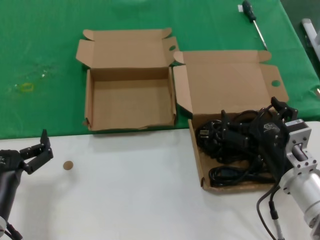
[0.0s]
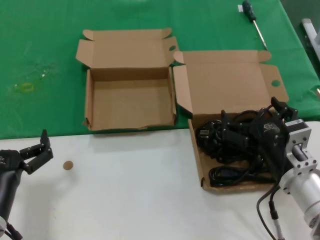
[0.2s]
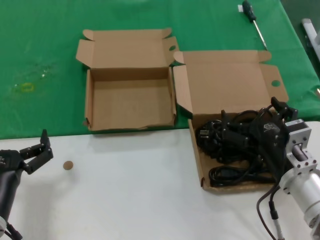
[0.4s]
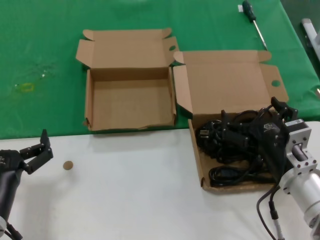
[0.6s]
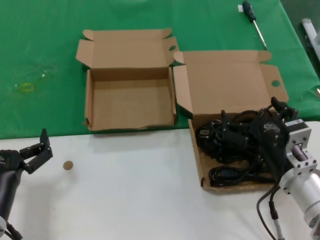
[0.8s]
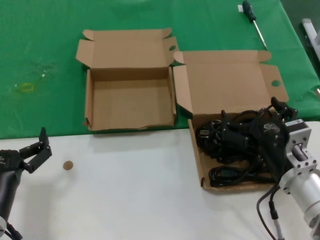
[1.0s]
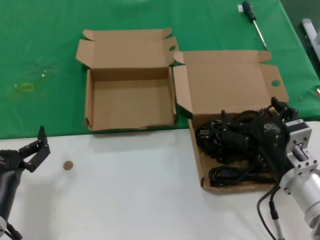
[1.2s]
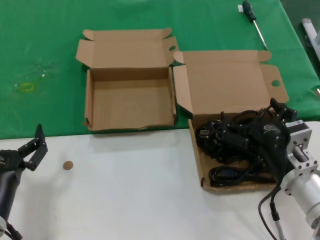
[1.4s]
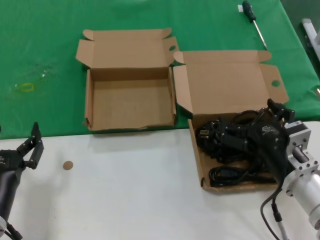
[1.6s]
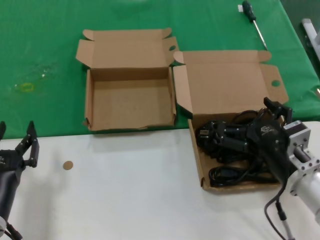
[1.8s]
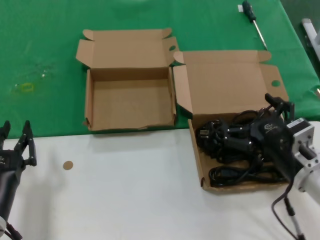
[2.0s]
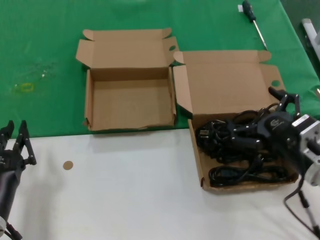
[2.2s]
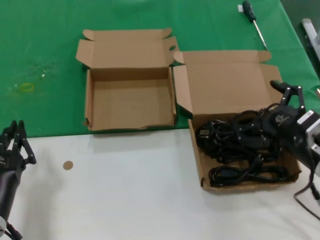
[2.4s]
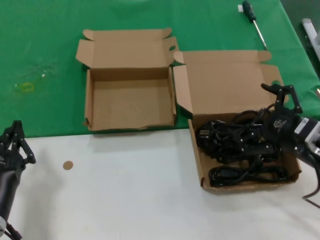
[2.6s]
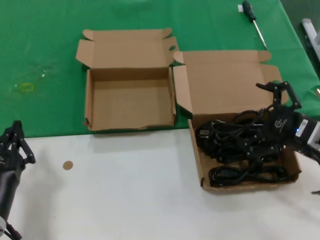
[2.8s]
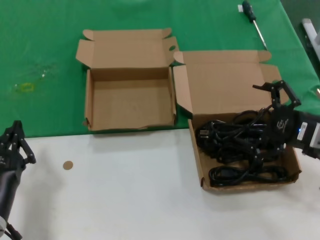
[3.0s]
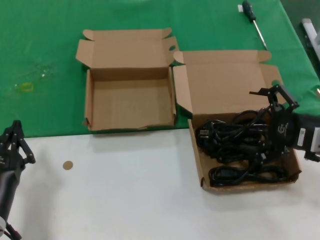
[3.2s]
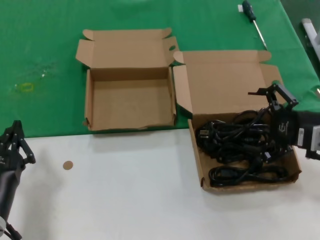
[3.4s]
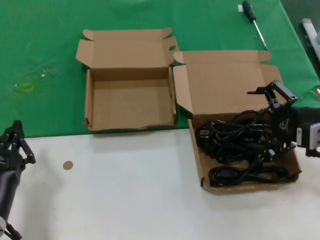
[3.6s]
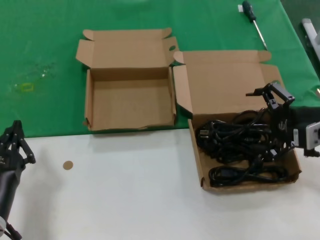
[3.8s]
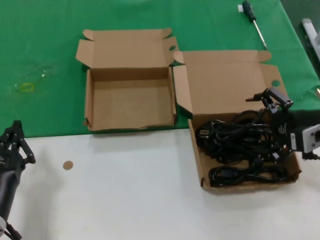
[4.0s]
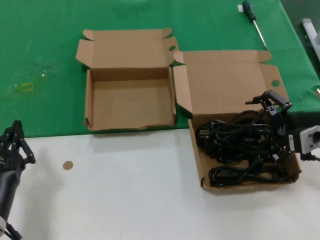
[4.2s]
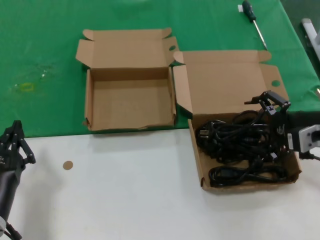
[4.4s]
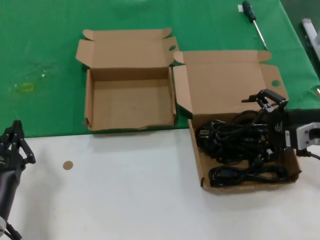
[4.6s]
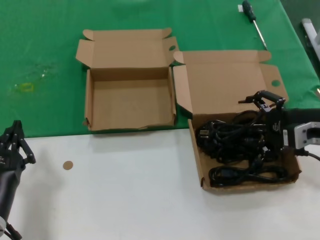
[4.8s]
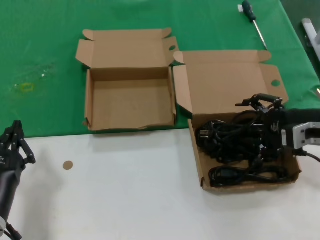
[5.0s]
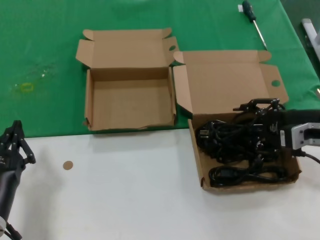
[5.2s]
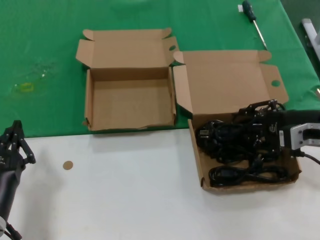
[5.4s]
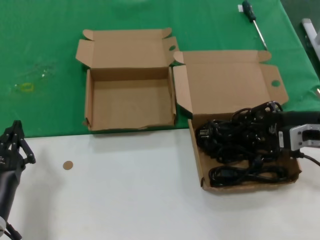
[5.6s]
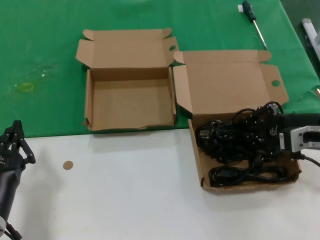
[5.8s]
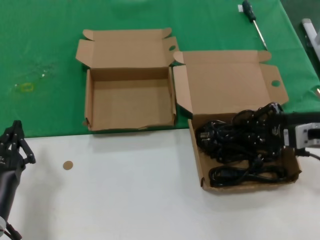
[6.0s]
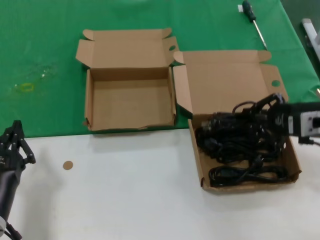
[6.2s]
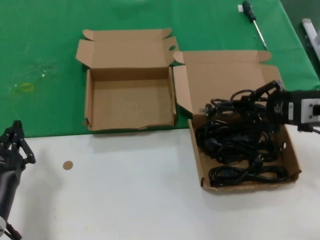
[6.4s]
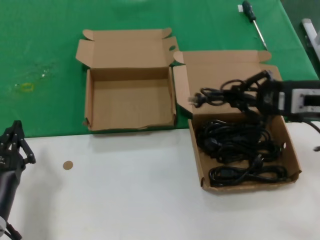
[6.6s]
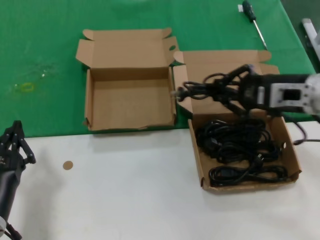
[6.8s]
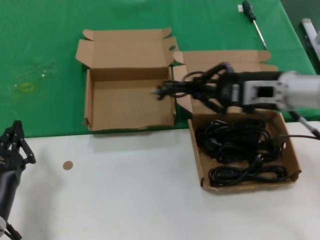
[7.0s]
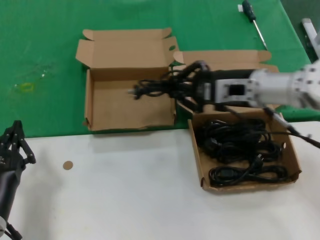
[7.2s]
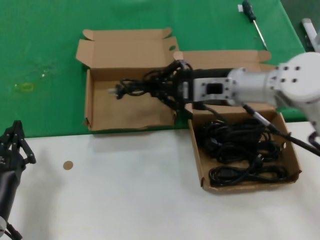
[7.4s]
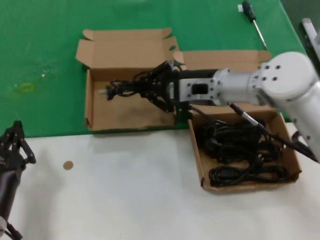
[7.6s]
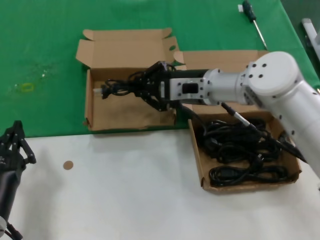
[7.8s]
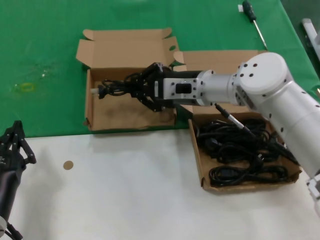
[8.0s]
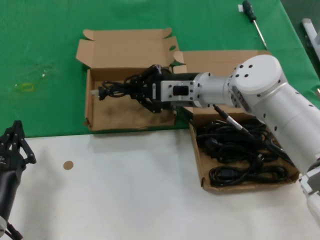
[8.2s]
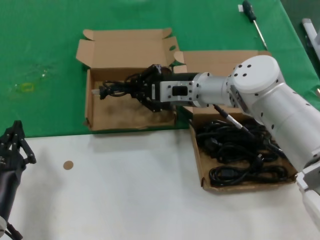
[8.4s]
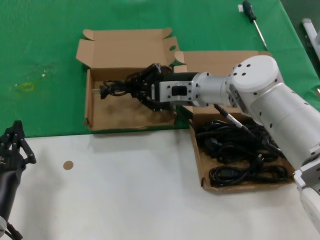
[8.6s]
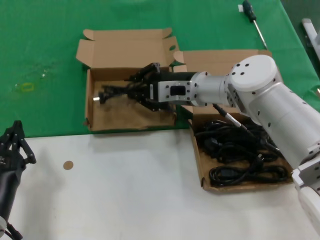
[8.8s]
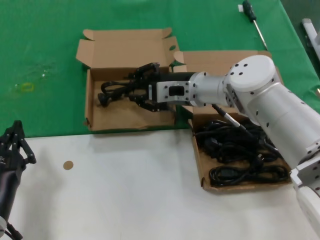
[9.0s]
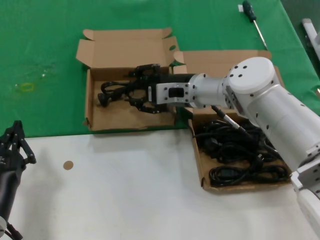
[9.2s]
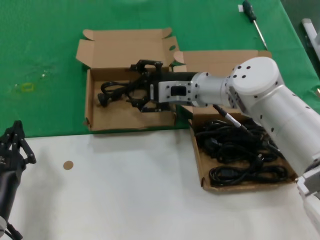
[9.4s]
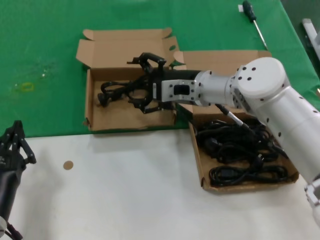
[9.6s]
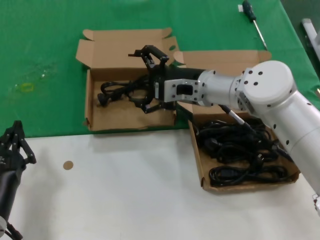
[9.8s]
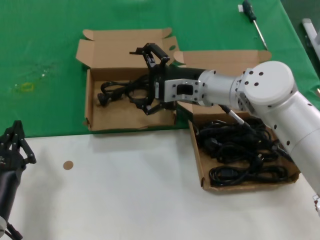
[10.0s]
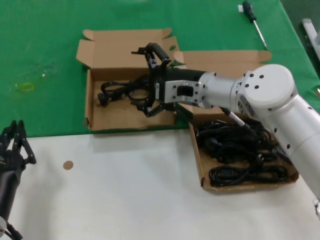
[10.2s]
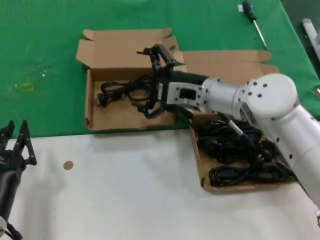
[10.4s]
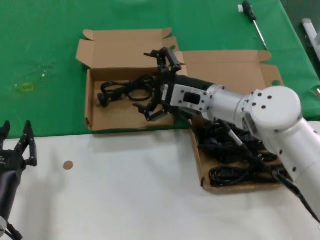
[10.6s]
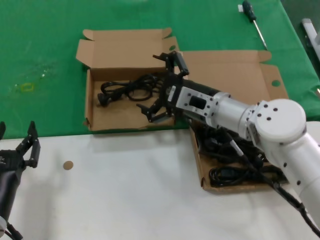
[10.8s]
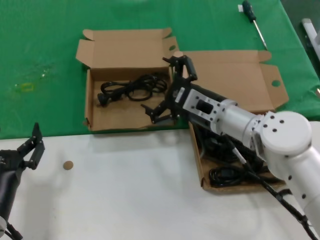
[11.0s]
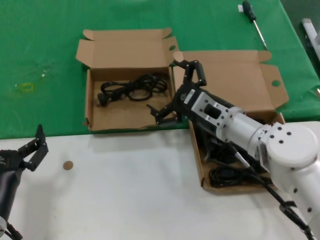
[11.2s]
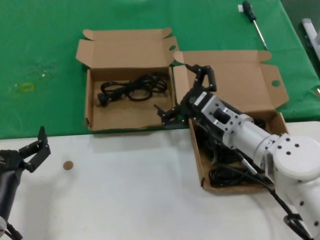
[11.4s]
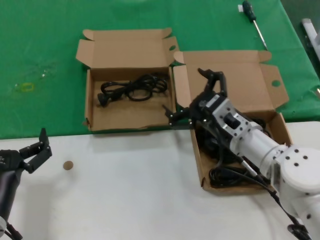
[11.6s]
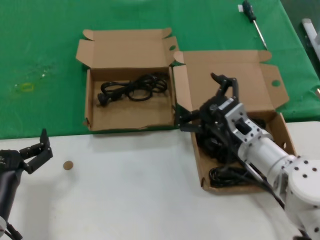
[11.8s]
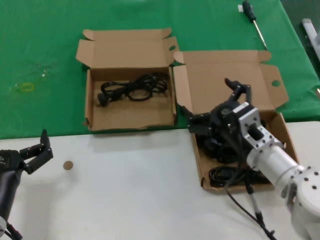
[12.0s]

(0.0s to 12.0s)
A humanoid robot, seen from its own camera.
Task of the whole recording: take the parts from the box containing them and put them into an empty box.
Step, 0.0s - 5.6s: Grasp the data cable.
Step, 5.8s - 9.6s: Place the data cable in the another box.
0.0s - 1.6s: Both hands stay about where they are.
1.6s - 3.0s: The right hand moves to the right and upward, approximately 15 cm.
3.0s - 4.4s: The right hand moves some 5 cm.
4.4s - 6.0s: There are only small adjustments of the hands.
6.0s - 7.6s: The right hand moves to the left and forward, roughly 20 cm.
7.6s - 9.0s: The right hand ends up approximately 5 cm from where it was.
9.0s - 10.4s: The hands stay close to where they were, moving slightly.
10.4s - 12.0s: The right hand travels backward, downward and to the right by roughly 15 cm.

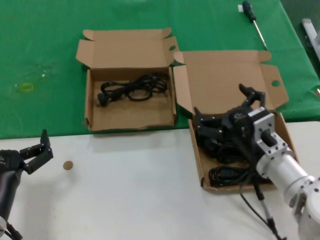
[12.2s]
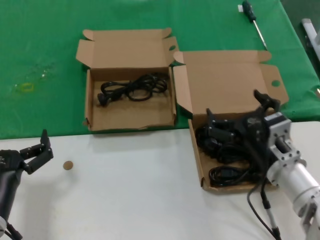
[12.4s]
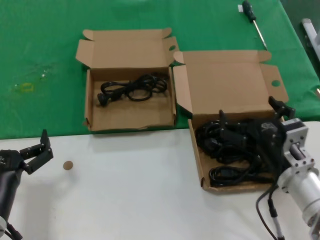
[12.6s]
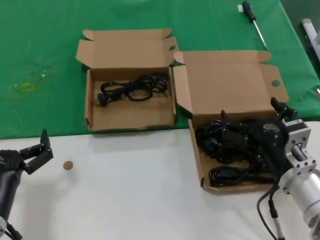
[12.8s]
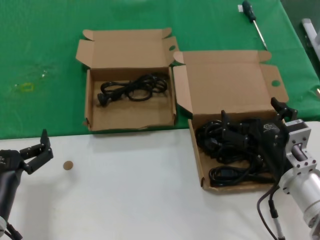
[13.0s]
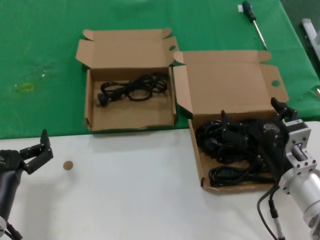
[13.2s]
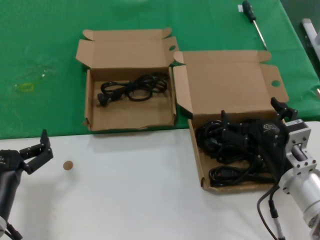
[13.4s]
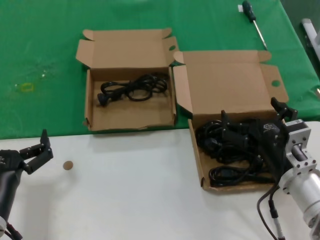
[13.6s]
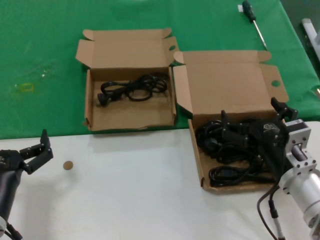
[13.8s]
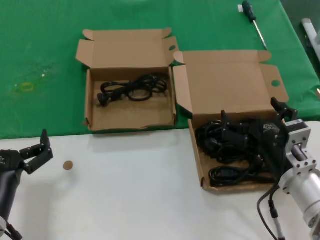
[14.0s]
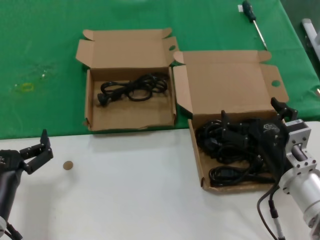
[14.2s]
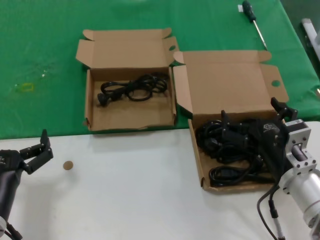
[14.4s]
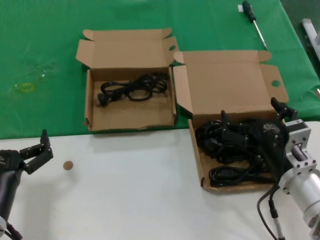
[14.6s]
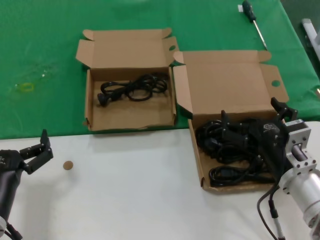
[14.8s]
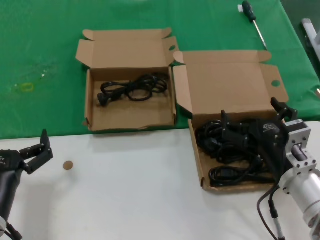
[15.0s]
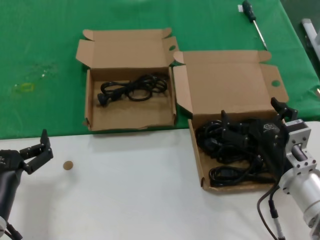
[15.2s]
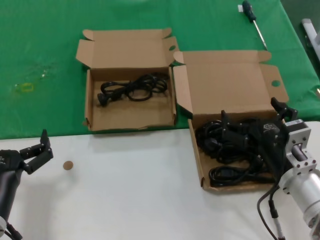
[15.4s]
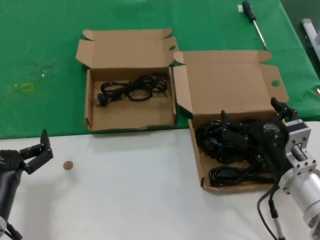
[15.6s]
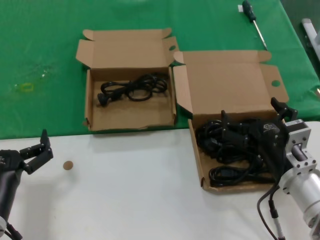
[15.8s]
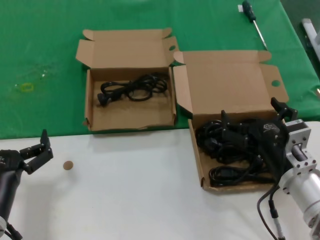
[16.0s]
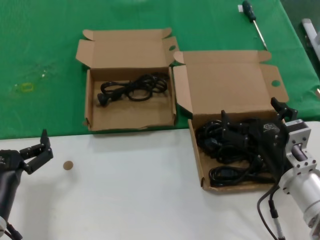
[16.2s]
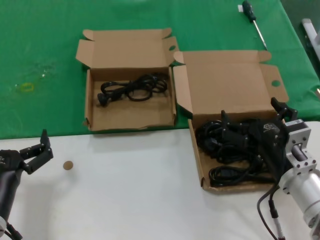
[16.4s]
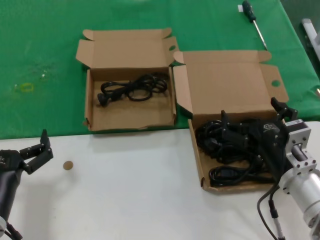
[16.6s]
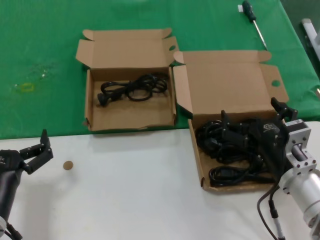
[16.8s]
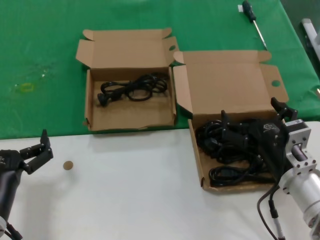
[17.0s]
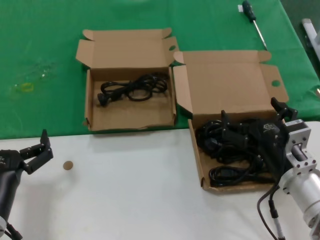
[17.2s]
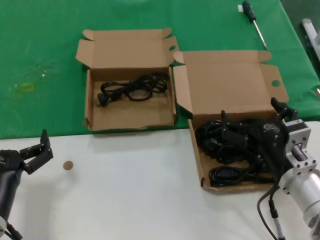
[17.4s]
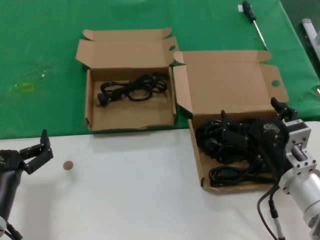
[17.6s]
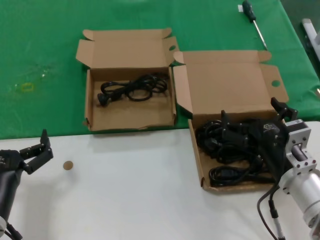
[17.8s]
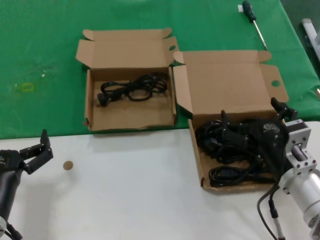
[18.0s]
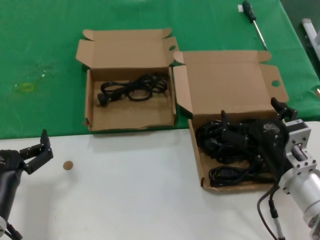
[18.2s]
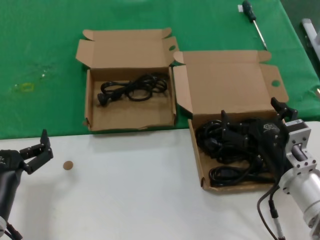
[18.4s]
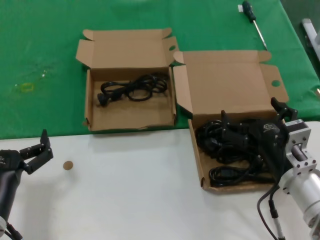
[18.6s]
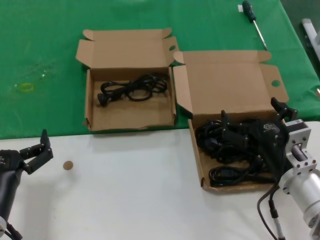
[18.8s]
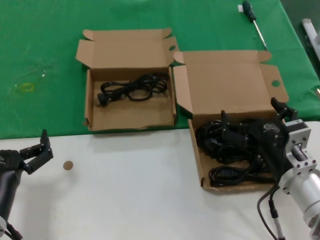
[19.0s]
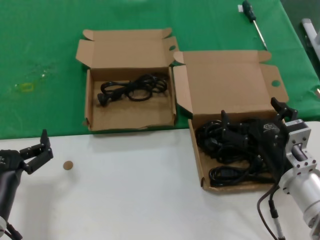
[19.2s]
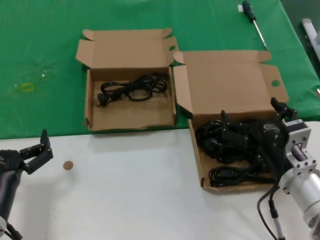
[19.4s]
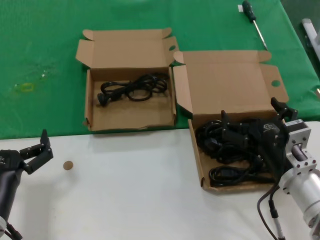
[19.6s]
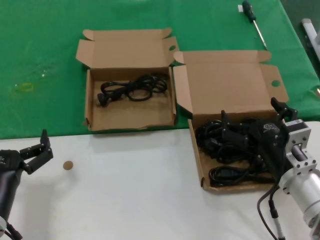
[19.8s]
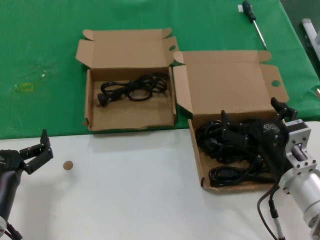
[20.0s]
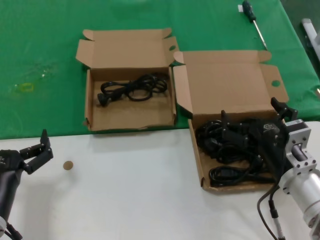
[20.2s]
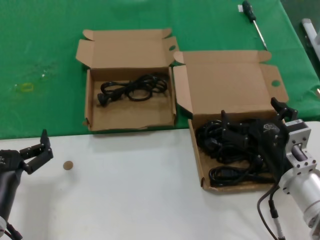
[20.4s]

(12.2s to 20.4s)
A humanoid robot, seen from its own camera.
Task of the whole recording: take the parts from the box containing them and put them into an empty box.
12.2s - 13.8s: The right hand moves about 5 cm.
13.8s - 20.4s: Both hands stay put.

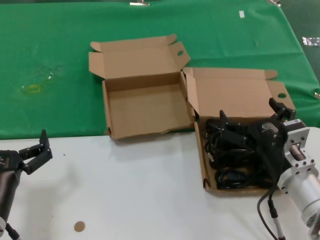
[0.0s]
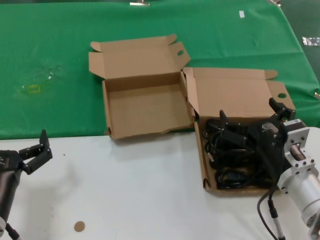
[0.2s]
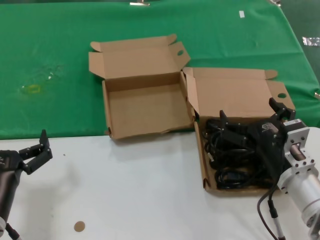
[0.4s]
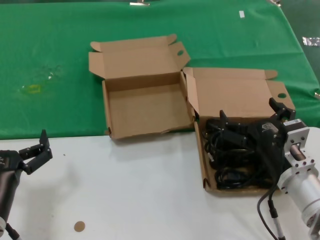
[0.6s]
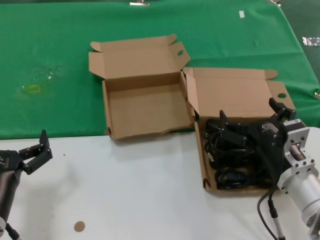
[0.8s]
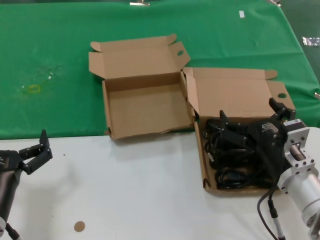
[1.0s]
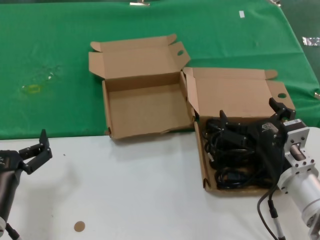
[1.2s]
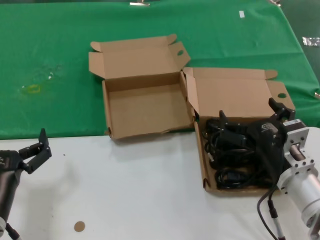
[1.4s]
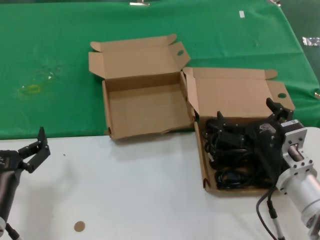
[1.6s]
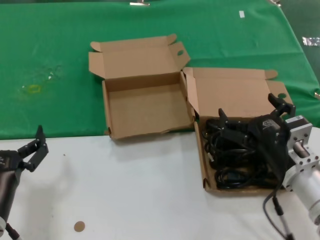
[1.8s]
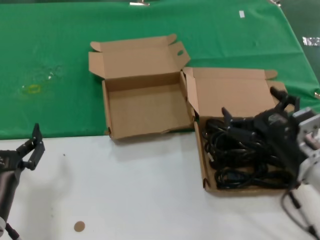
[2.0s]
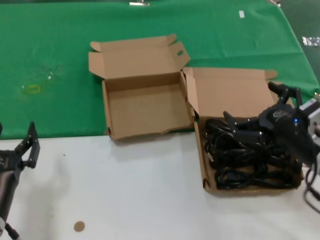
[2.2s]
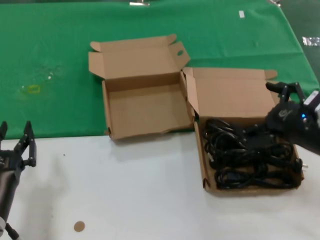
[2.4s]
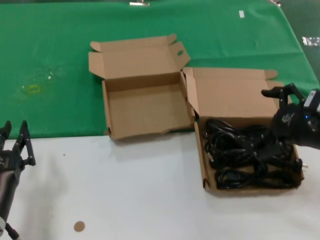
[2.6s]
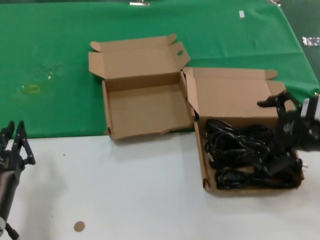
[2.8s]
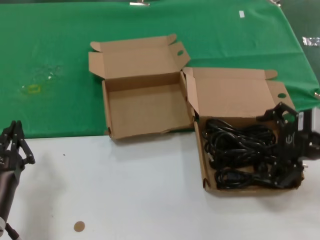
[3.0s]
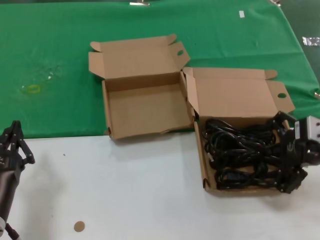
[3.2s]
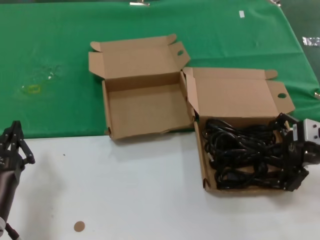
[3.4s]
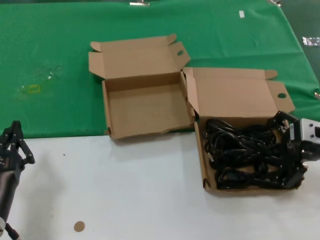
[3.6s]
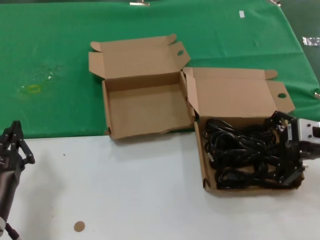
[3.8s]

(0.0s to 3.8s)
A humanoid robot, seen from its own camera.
Task of the whole recording: take the parts from the box containing them and put them into an empty box.
0.0s - 1.2s: Neither hand changes place.
1.2s - 2.6s: The right hand shifts approximately 15 cm upward and to the right.
2.6s - 3.8s: The right hand heads forward, covering approximately 5 cm.
